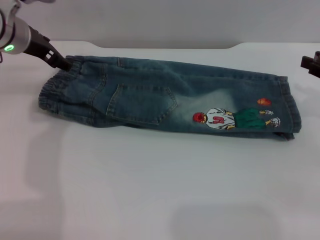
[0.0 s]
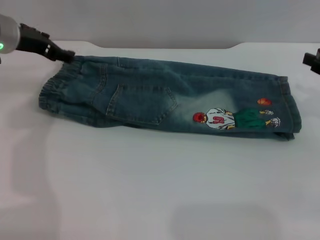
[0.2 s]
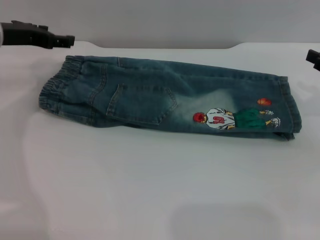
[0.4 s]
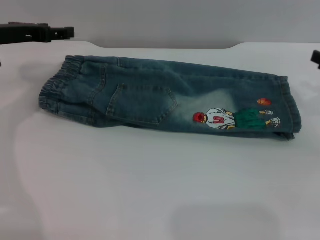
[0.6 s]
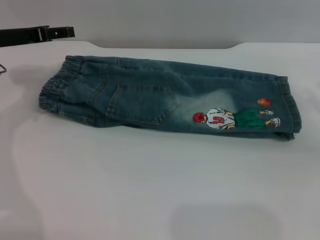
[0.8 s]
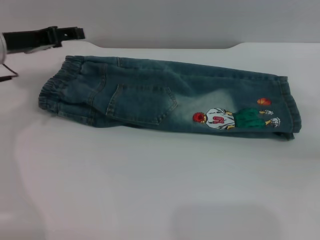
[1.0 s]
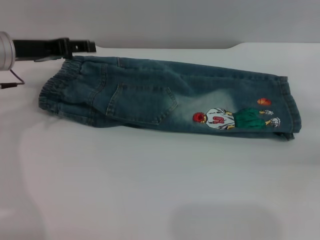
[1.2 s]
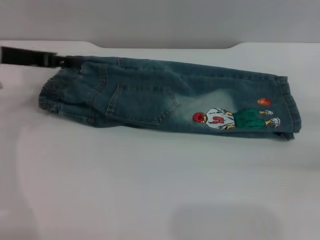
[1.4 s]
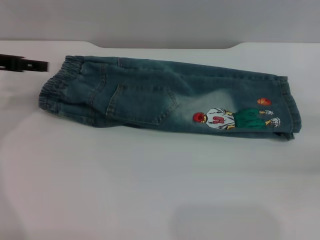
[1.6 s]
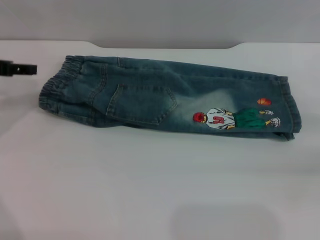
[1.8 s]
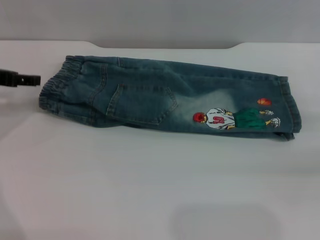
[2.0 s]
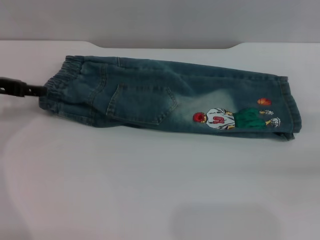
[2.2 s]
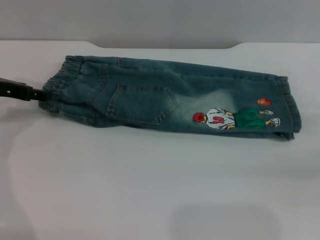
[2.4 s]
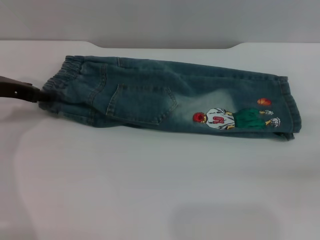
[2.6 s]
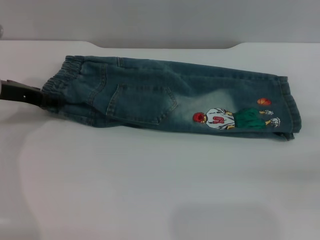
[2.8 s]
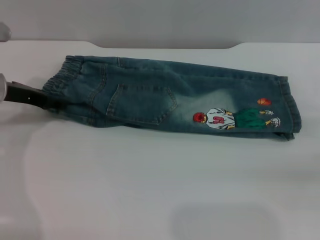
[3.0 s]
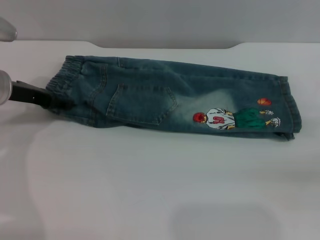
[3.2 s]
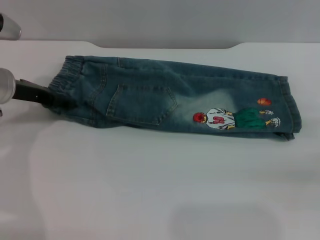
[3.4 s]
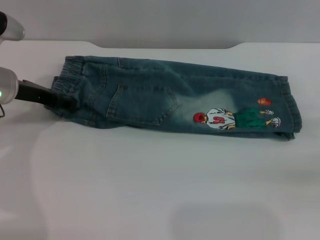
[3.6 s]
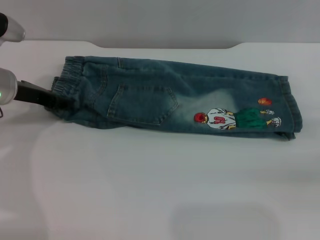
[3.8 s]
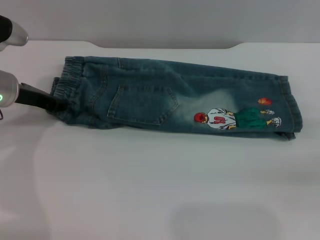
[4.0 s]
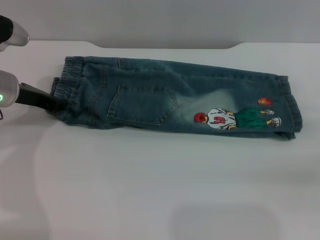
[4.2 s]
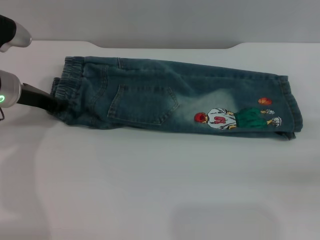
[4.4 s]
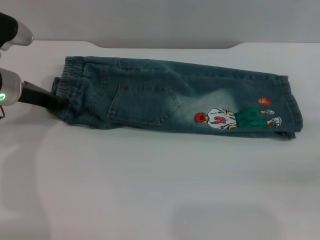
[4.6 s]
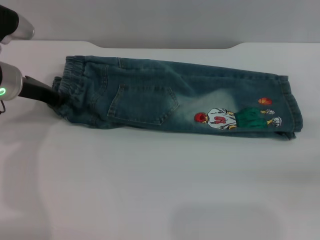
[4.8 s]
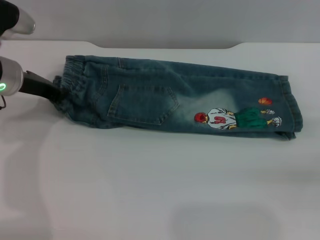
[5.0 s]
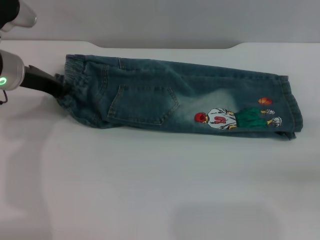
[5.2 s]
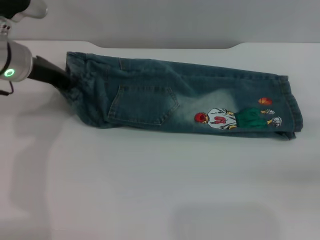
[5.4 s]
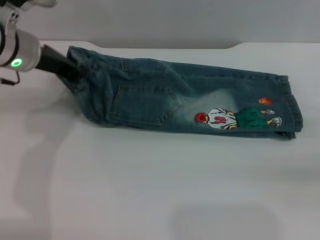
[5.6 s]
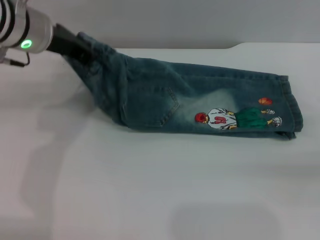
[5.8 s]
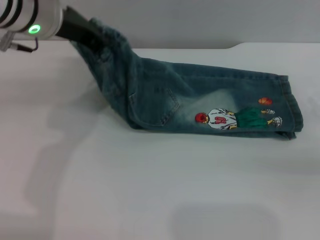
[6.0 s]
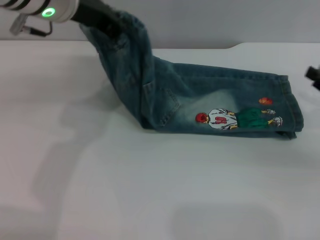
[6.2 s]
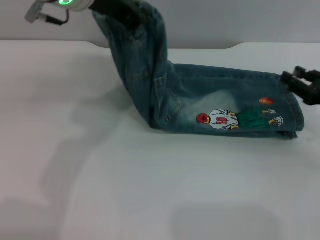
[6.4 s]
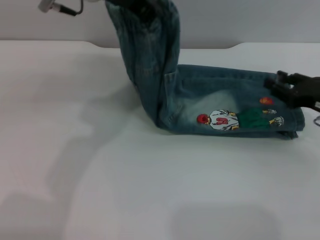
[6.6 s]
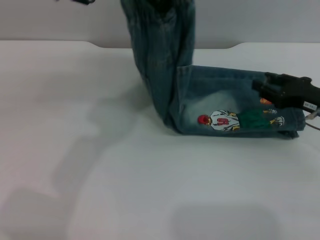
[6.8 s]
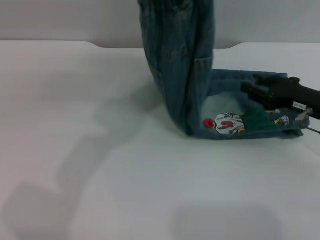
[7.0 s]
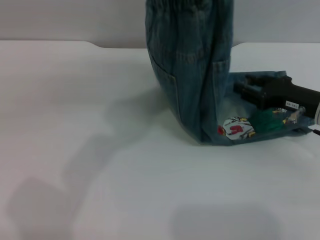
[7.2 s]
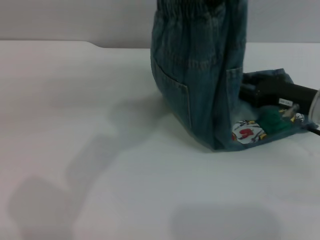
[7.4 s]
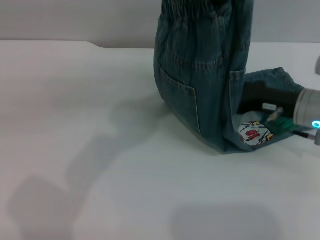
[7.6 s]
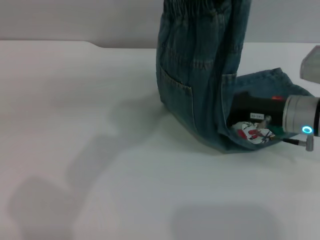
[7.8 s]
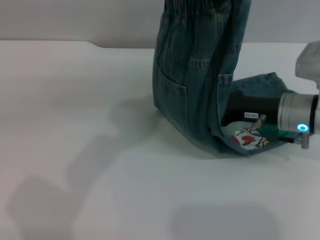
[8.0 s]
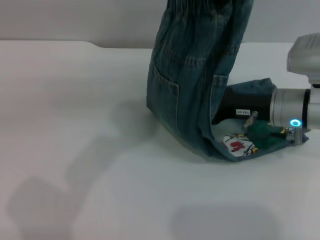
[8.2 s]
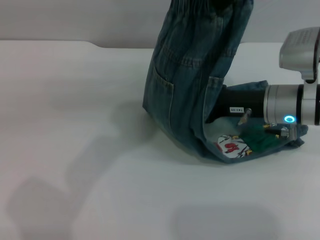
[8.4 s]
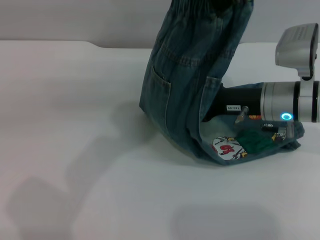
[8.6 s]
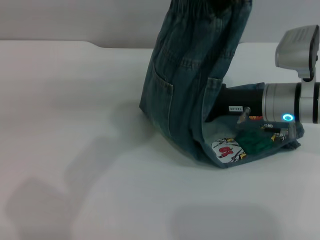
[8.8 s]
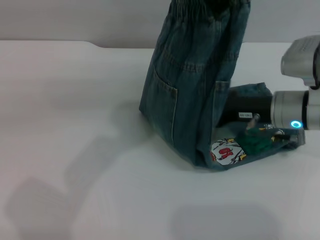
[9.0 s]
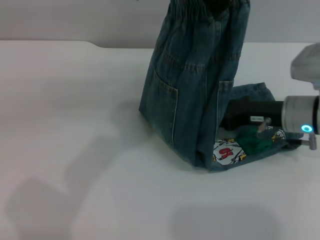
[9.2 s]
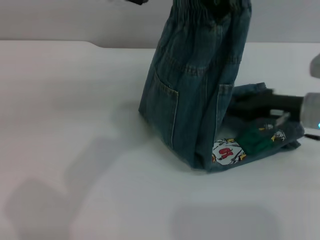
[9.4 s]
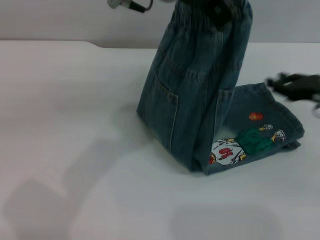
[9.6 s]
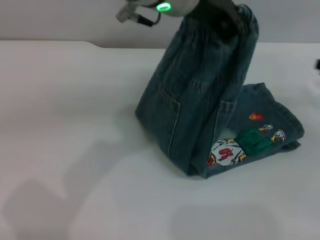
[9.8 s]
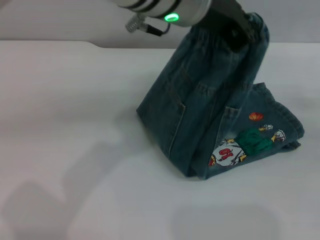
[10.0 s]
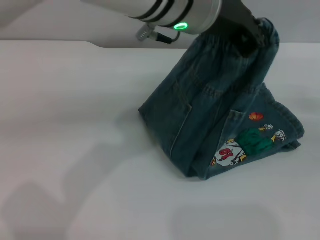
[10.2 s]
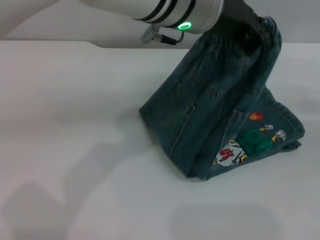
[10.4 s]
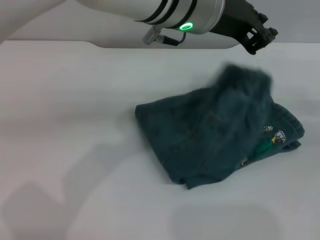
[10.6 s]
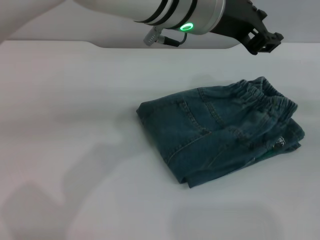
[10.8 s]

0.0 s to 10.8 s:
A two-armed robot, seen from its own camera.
Step, 0.0 to 10.6 s: Fold the pants from left to right with the left gripper.
0.0 to 1.6 s: The left gripper moves to the left and backward, about 10 cm.
1.6 to 3.0 s: The left gripper is displaced downward by about 5 cm.
3.0 to 4.6 s: The left gripper closes up.
4.6 to 6.2 s: The right gripper is displaced to the left by approximately 5 cm, while the left gripper is displaced upward and to the right by about 20 cm.
6.2 to 7.8 s: The right gripper goes about 15 cm to the left, while the left gripper travels to the right and upward by some 15 cm.
7.8 to 9.2 s: The grippers stay close to where they were, moving slightly.
9.2 to 10.8 s: The right gripper is displaced to the right by about 15 cm. Meanwhile the left gripper ends up about 5 cm from where it was, and opens its fingers.
